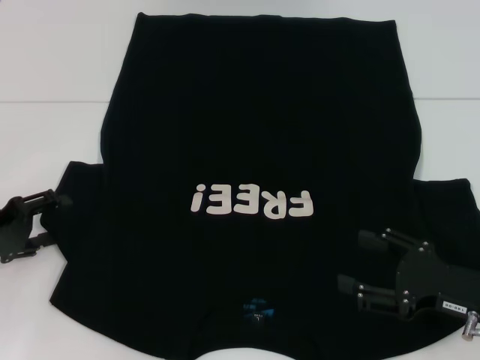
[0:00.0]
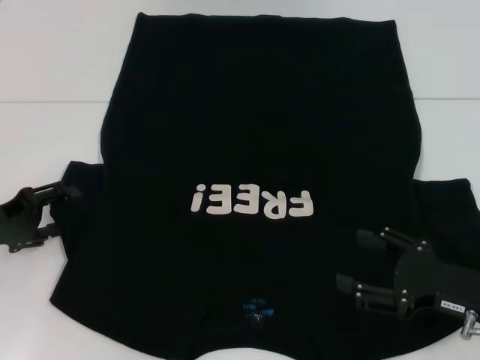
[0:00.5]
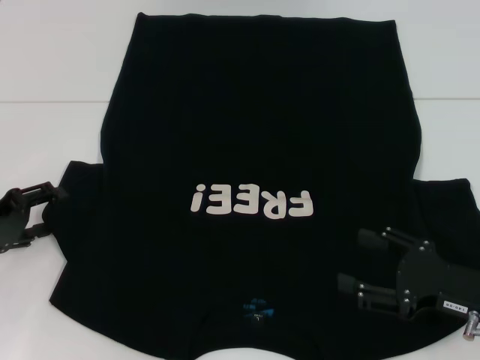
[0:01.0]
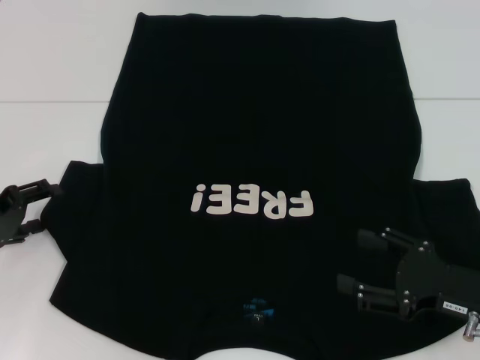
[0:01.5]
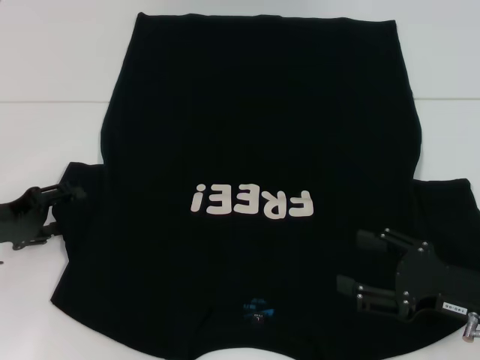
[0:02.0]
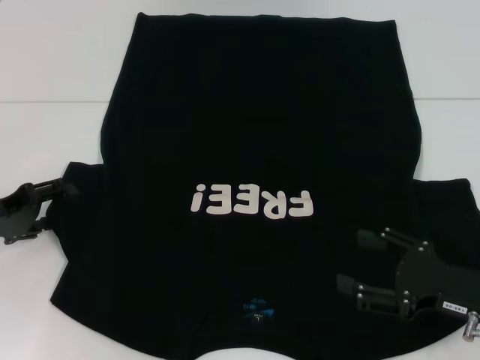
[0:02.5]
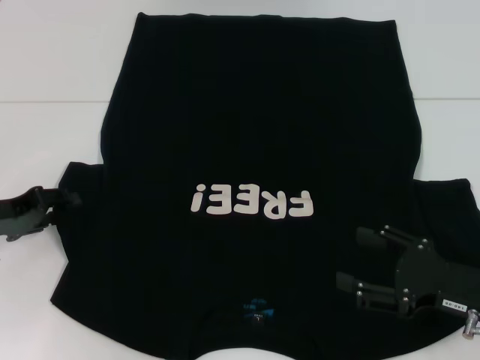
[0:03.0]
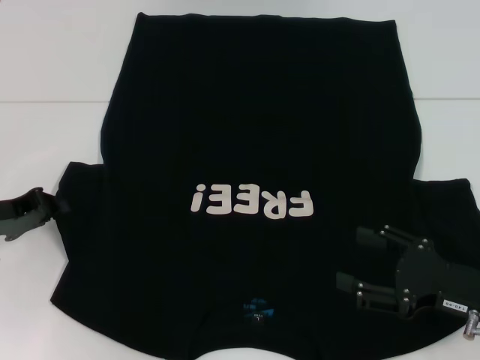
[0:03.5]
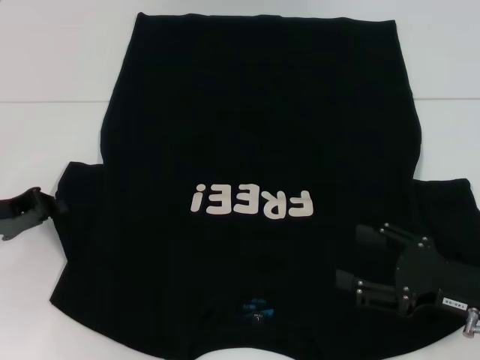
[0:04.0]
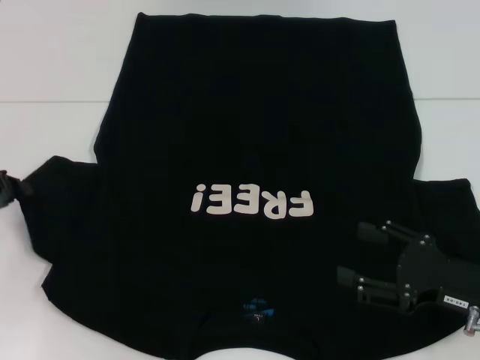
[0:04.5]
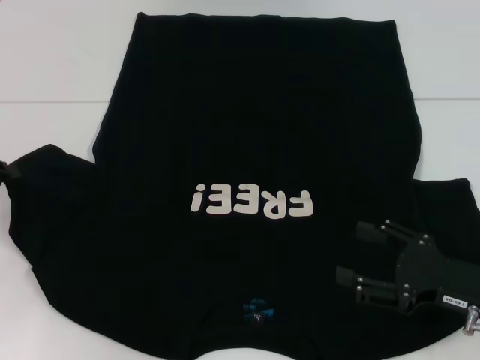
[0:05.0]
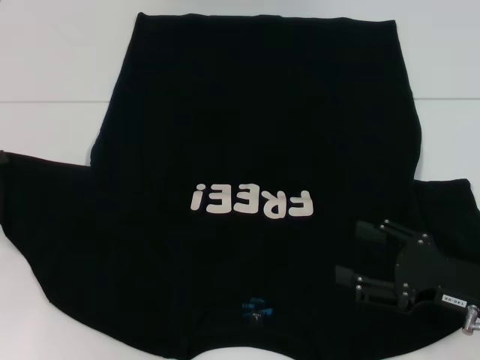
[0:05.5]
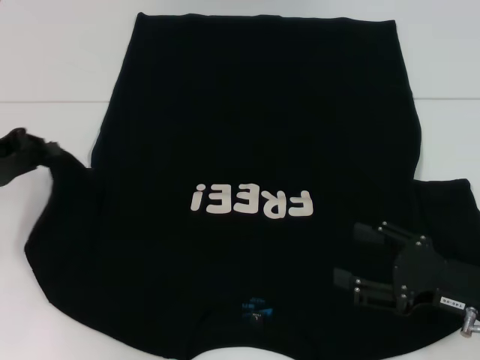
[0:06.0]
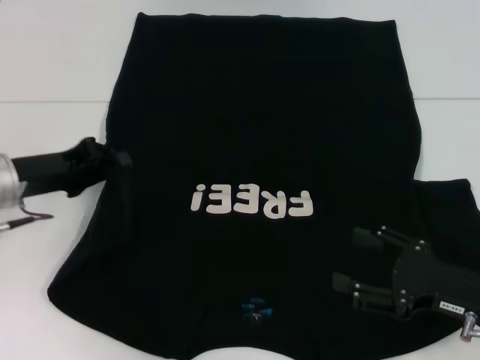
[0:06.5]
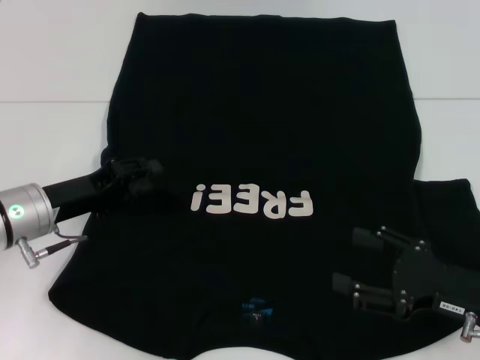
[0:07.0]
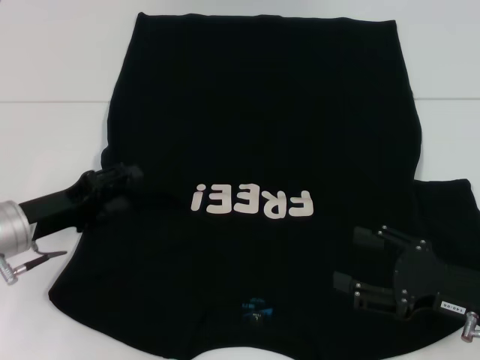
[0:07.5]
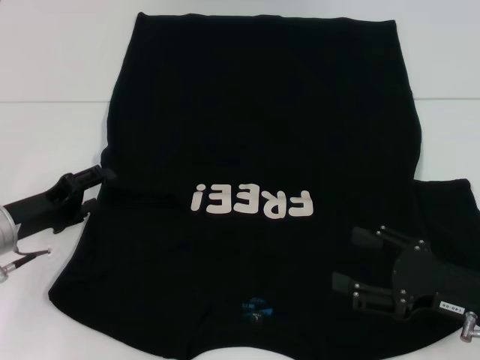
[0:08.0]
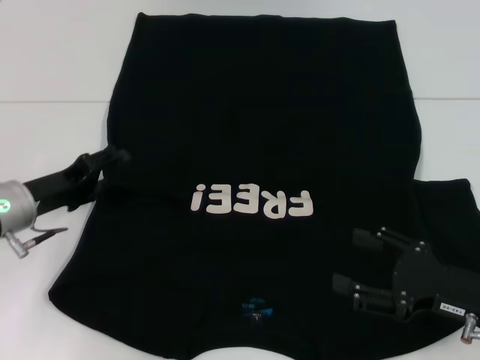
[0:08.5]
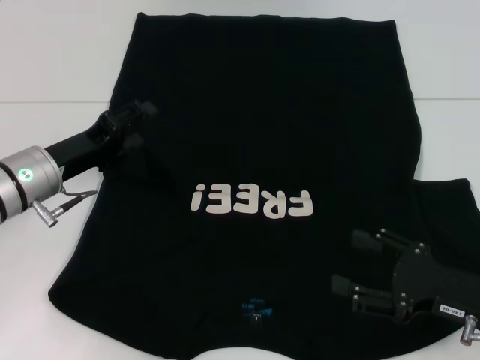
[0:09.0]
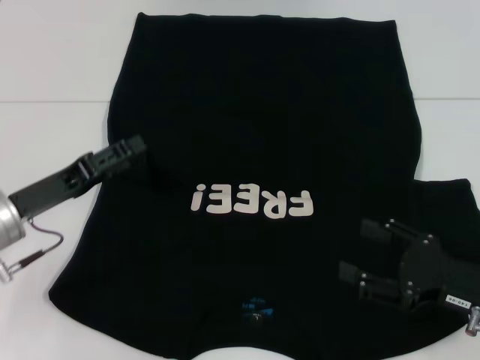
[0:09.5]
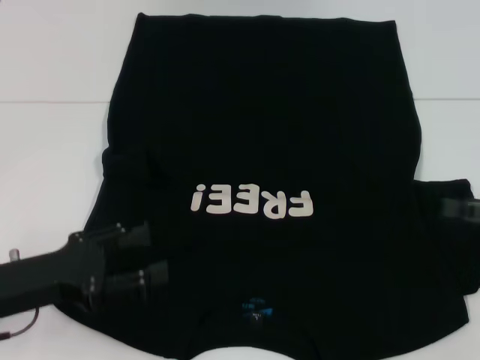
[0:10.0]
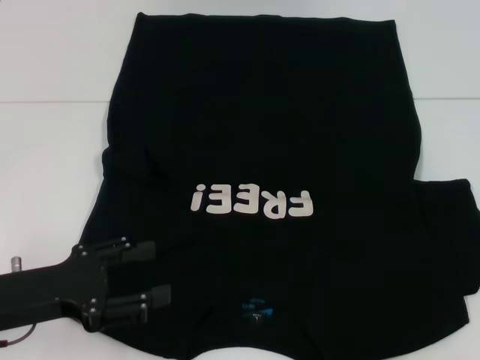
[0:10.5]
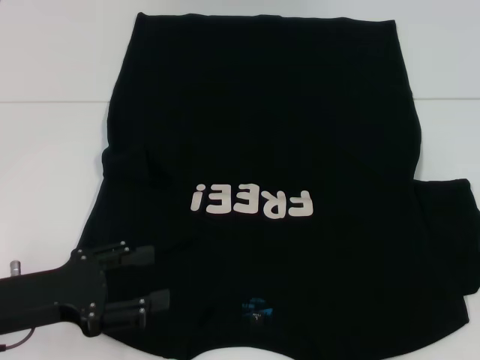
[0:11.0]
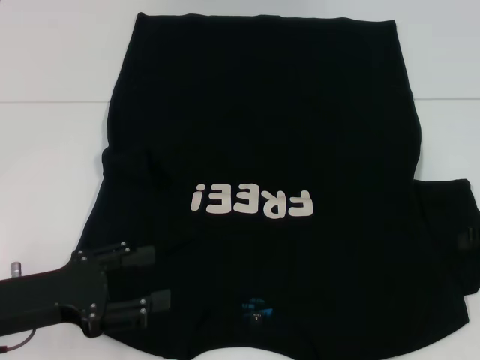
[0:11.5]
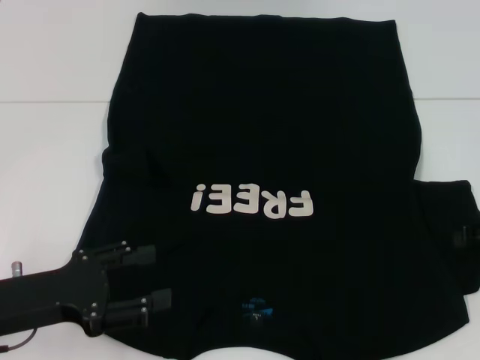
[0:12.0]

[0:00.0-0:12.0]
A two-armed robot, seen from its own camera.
Step, 0:00.0 to 0:07.5: Fold the bottom left sleeve with your left hand.
0:00.0 to 0:02.0: The grippers move only a little.
0:02.0 to 0:04.0: The left gripper closes up.
0:04.0 to 0:06.0: The left gripper goes some 5 cm upward.
0:06.0 to 0:08.0: The left gripper shifts roughly 10 cm downward, and opens.
0:08.0 to 0:10.0: The right gripper heads to the right and upward, covering some 10 cm; the left gripper shifts about 10 cm backward.

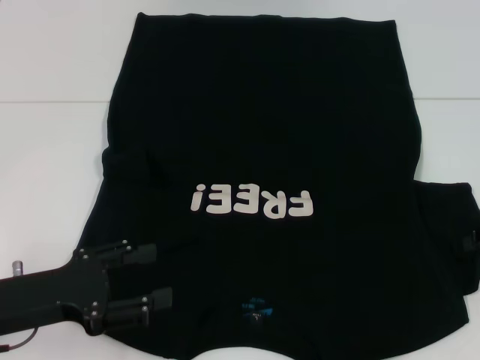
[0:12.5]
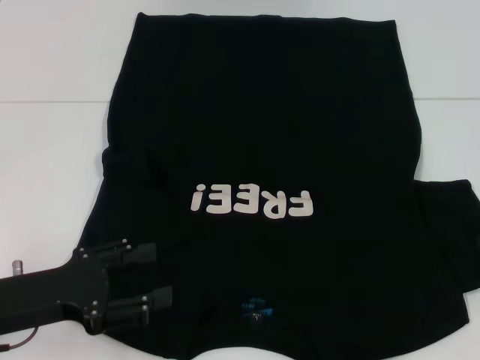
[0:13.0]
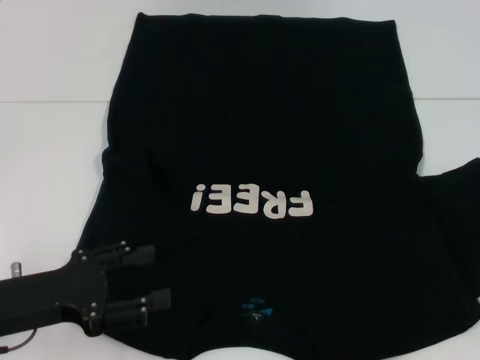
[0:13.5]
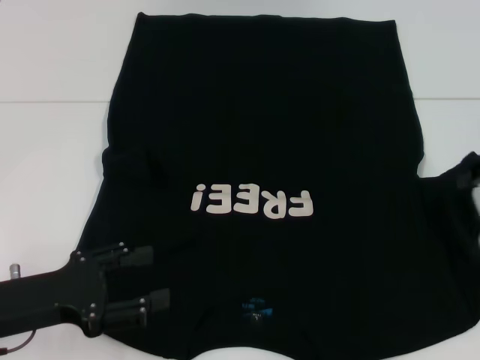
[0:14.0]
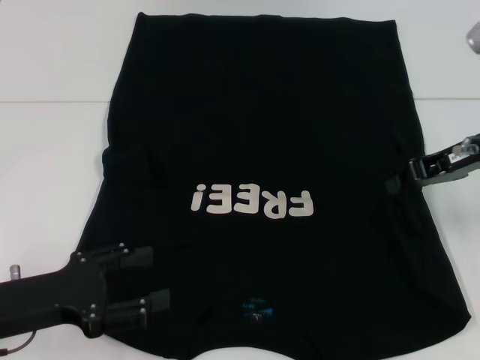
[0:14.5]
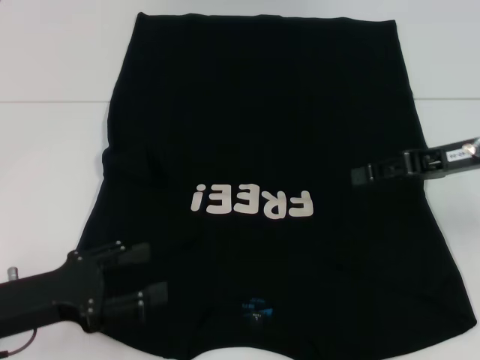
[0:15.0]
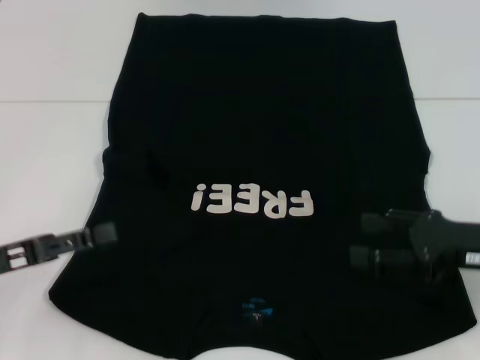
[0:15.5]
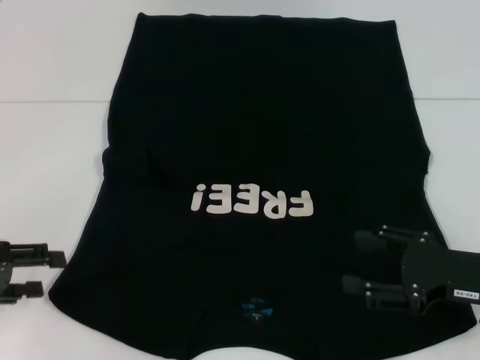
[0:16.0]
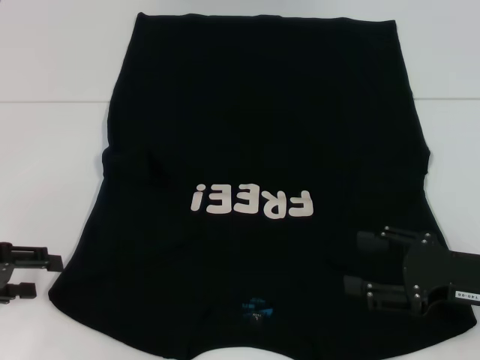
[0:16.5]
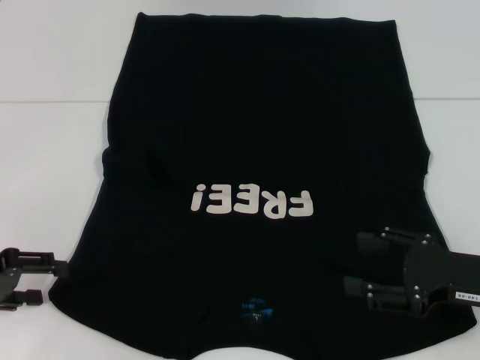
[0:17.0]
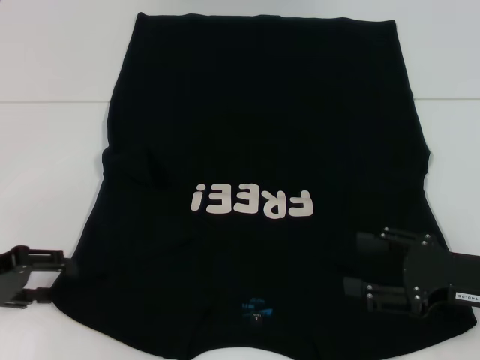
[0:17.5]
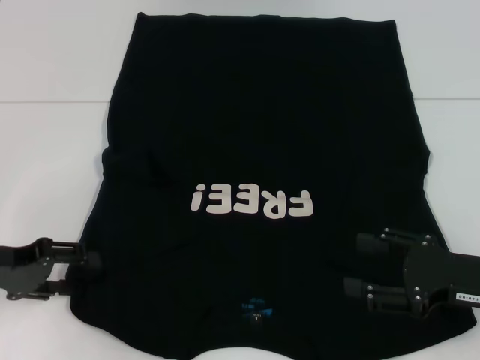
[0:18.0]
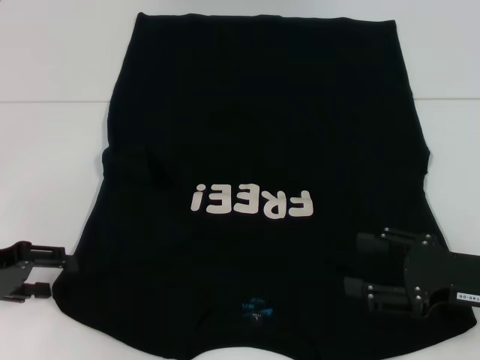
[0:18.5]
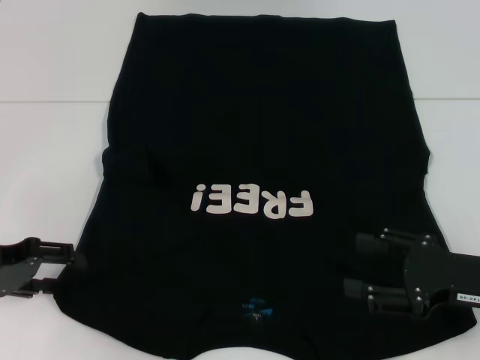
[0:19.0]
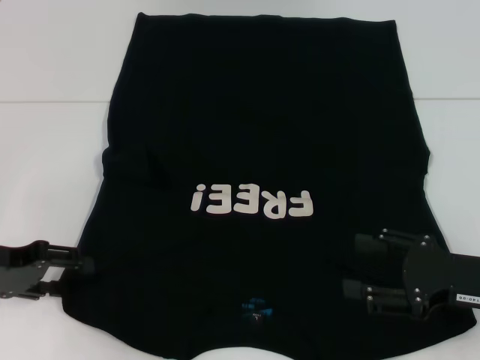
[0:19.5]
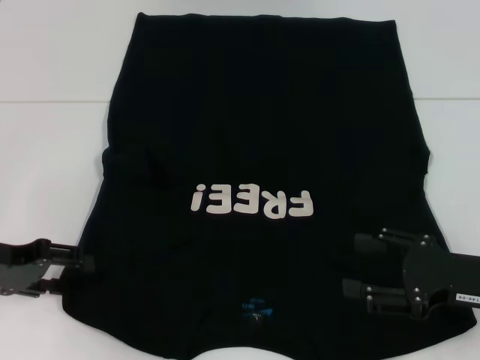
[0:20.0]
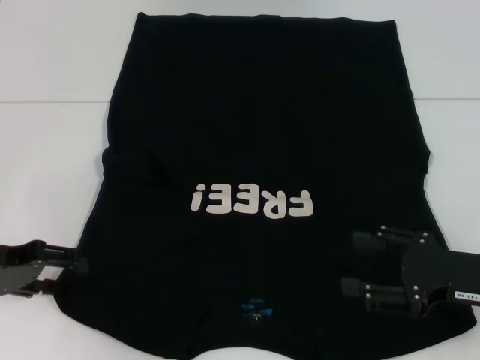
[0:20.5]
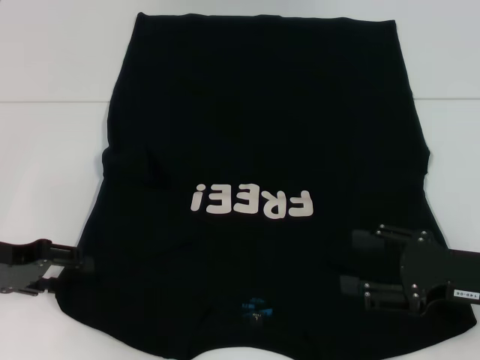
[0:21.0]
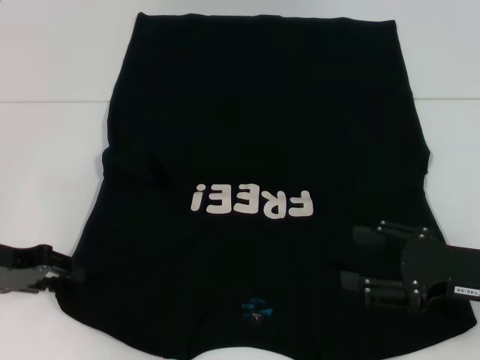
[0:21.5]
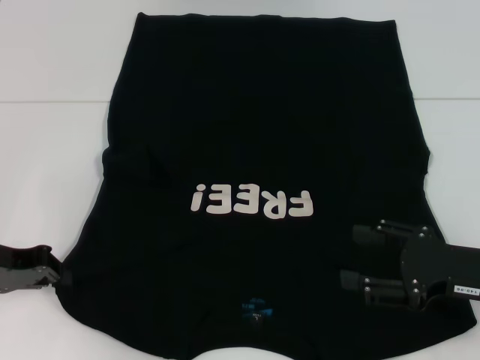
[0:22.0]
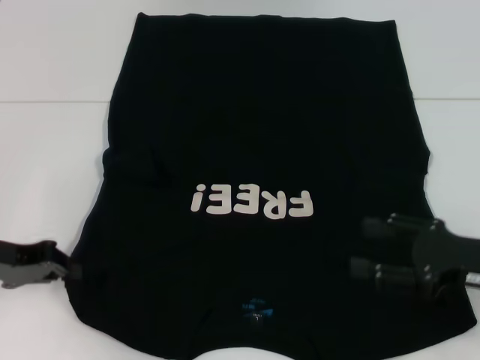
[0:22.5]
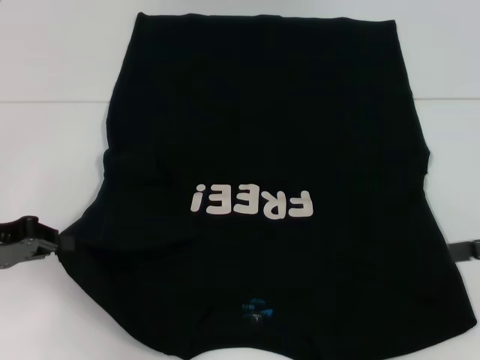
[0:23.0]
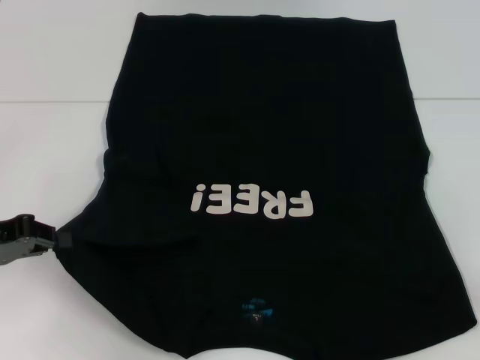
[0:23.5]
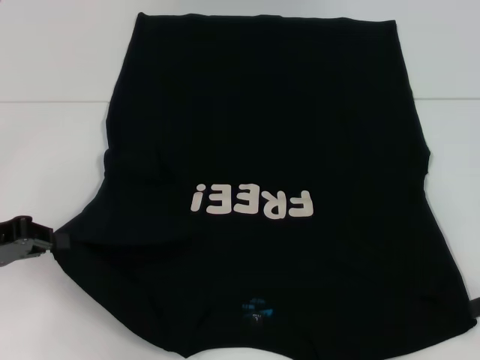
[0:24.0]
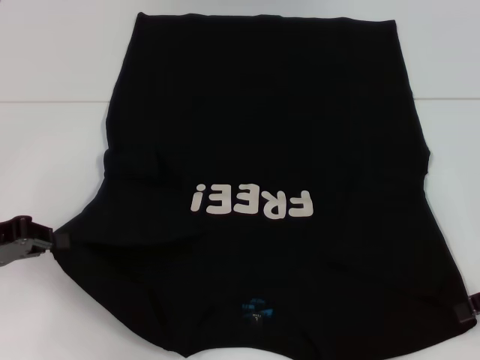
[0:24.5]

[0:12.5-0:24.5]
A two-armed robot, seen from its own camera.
Step, 0:12.5 to 0:15.0: Fold the bottom right sleeve with your right hand.
Step, 0:15.5 to 0:22.5: Grab the bottom left corner with your left hand.
0:12.5 to 0:14.5: The right gripper travels to the left and upward by some 10 cm, and closes.
0:14.5 to 0:16.5: The left gripper goes about 10 cm to the left; the right gripper heads backward and downward, covering approximately 15 cm, and opens up.
0:16.5 to 0:20.5: The grippers make only small movements.
0:20.5 to 0:22.5: The left gripper closes its fingers.
0:22.5 to 0:24.5: The right gripper moves to the right, some 5 cm.

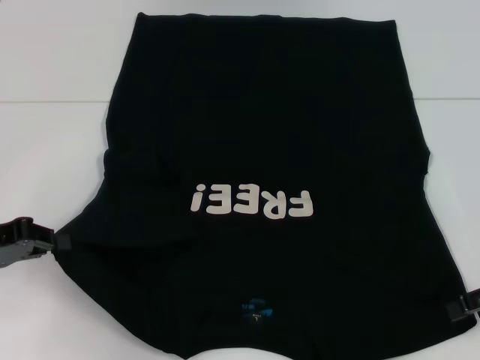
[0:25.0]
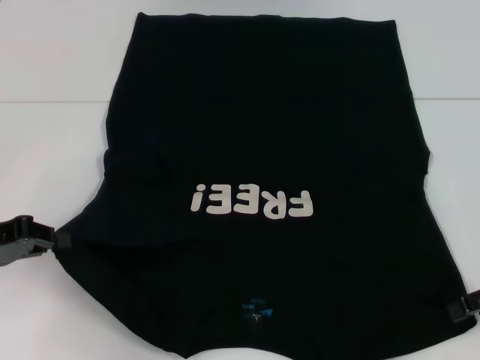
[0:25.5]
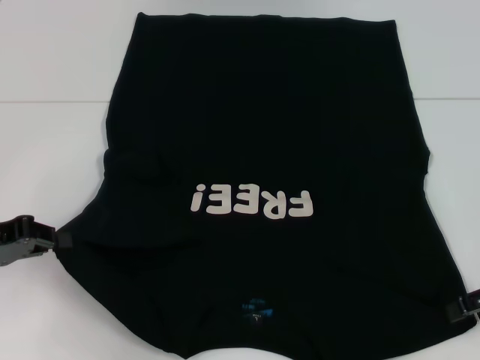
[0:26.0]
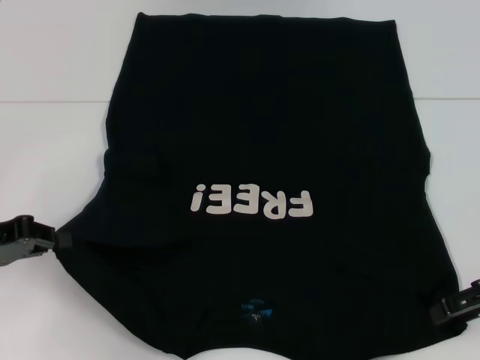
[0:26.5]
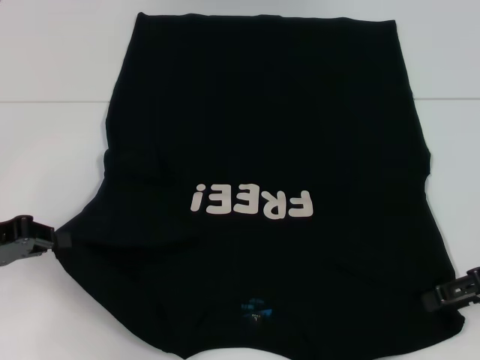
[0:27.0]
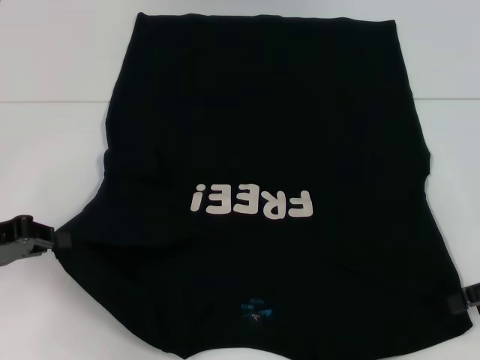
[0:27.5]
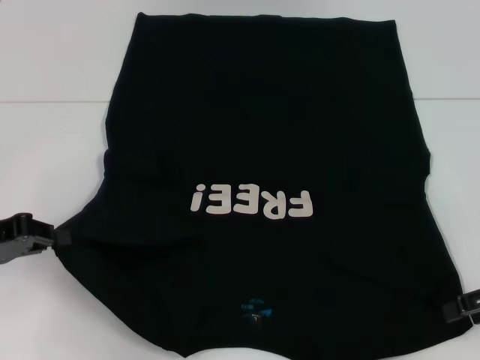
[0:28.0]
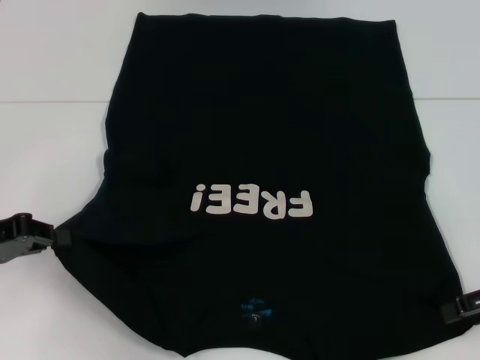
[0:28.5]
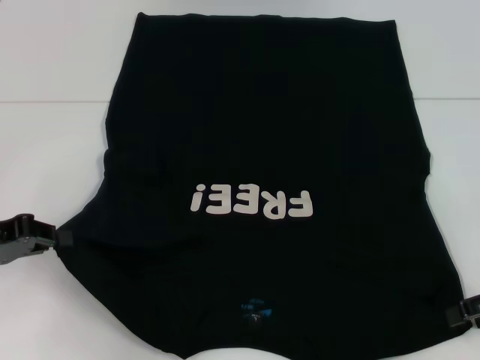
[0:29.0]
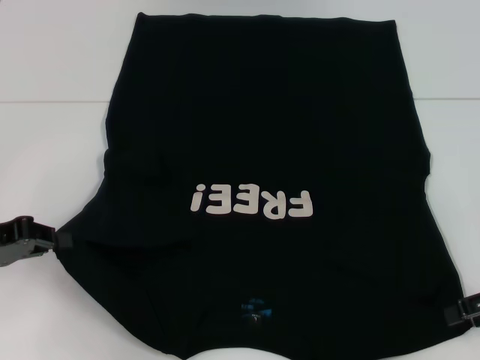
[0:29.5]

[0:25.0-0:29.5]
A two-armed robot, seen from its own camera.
0:25.0 to 0:29.5: The grippers move only a little.
